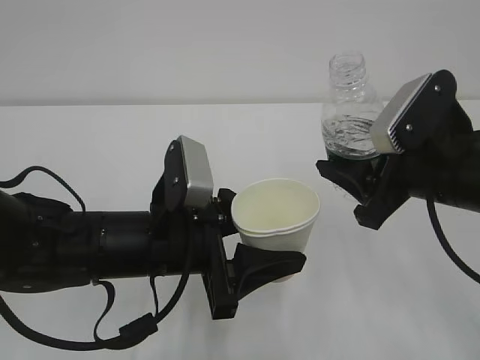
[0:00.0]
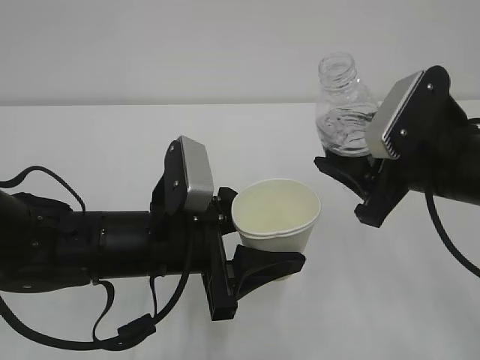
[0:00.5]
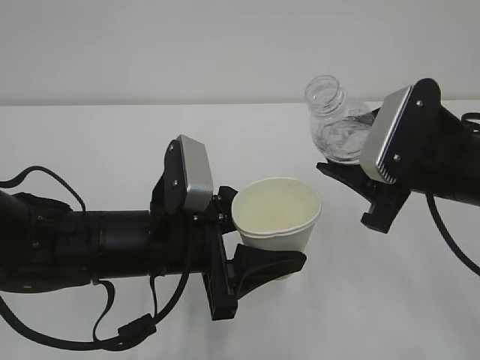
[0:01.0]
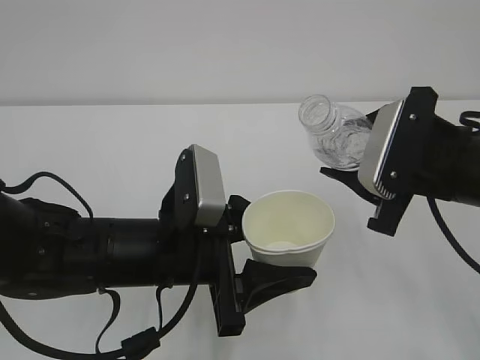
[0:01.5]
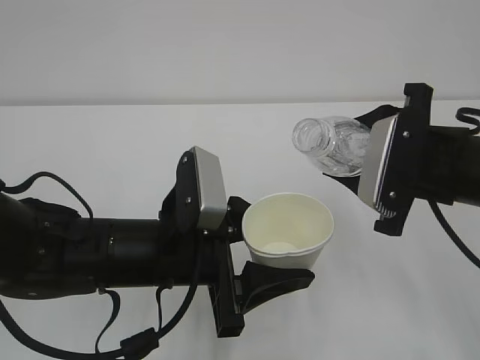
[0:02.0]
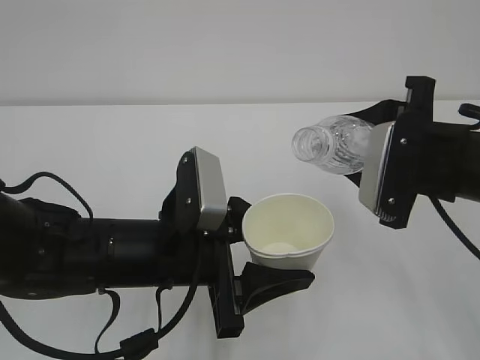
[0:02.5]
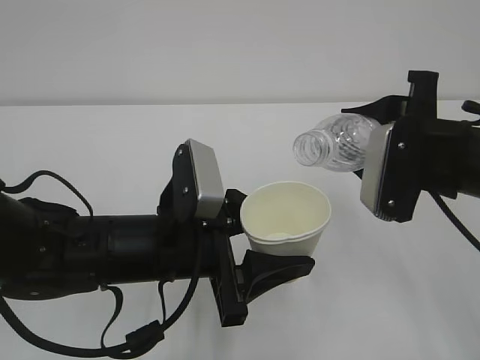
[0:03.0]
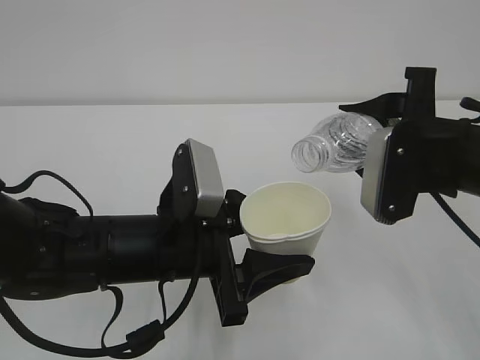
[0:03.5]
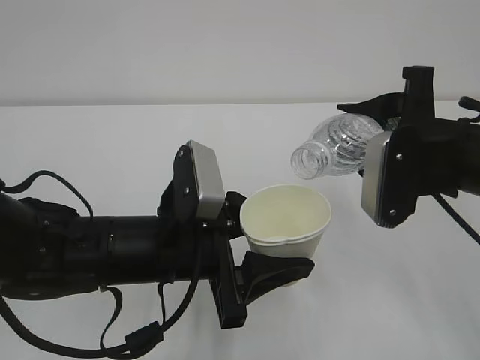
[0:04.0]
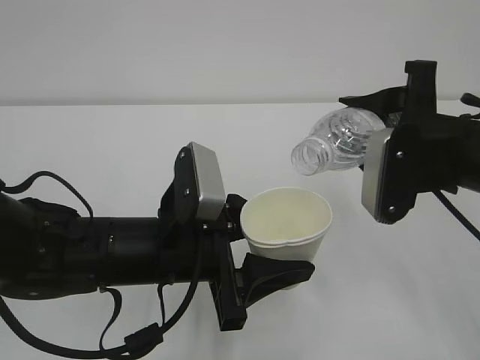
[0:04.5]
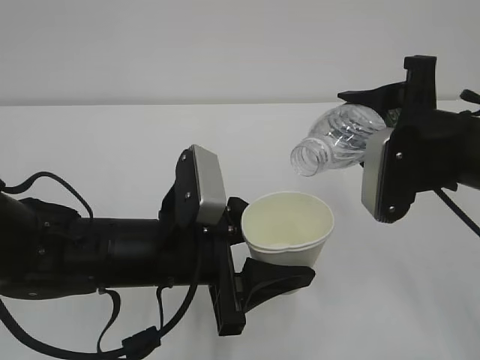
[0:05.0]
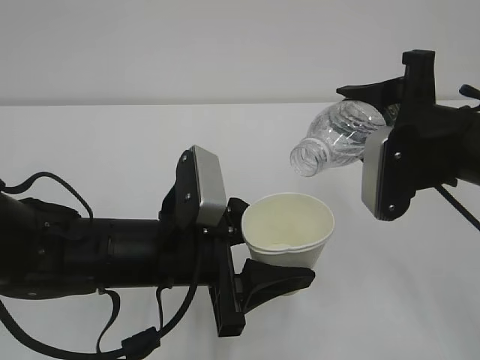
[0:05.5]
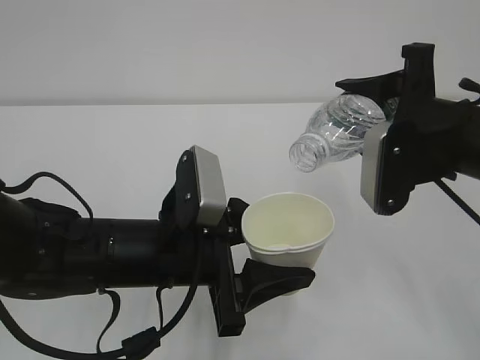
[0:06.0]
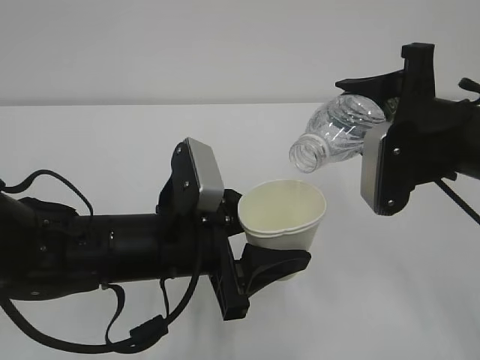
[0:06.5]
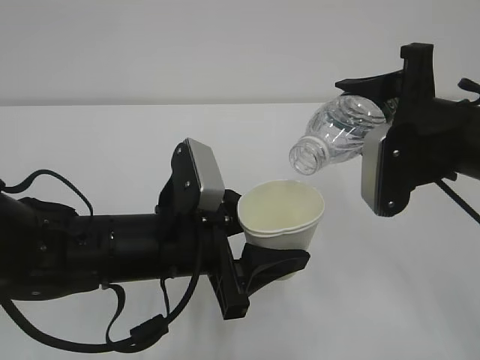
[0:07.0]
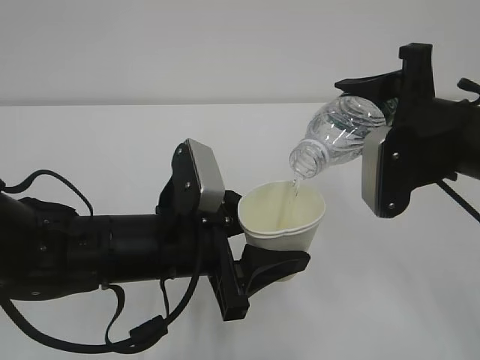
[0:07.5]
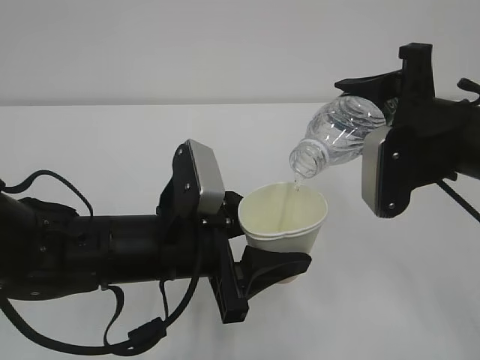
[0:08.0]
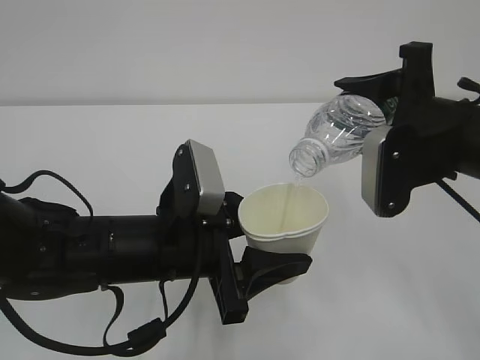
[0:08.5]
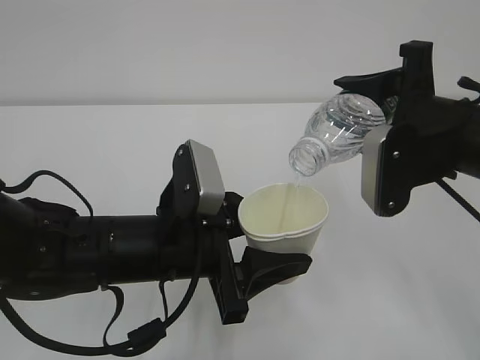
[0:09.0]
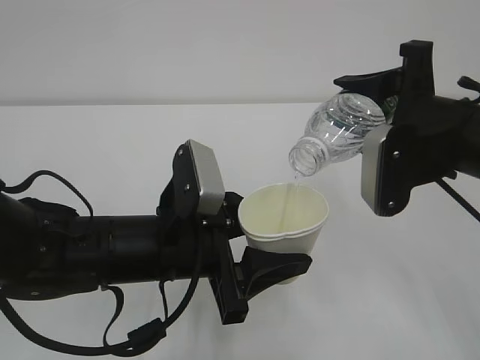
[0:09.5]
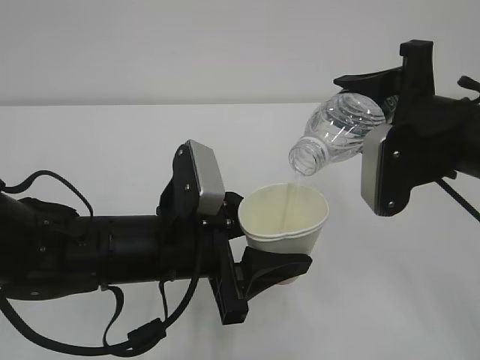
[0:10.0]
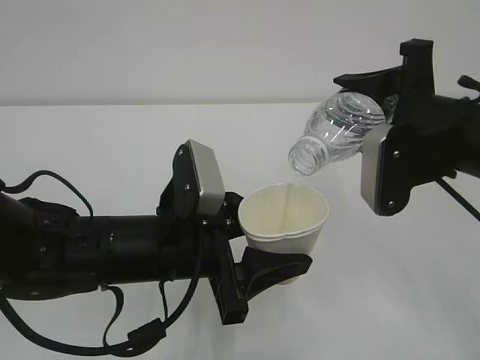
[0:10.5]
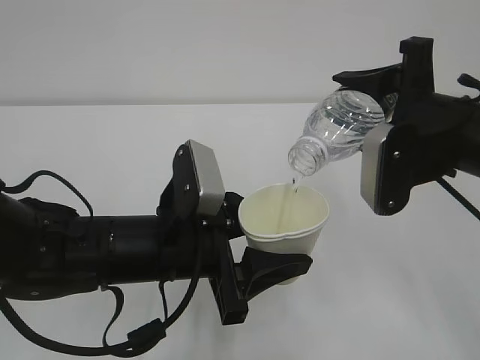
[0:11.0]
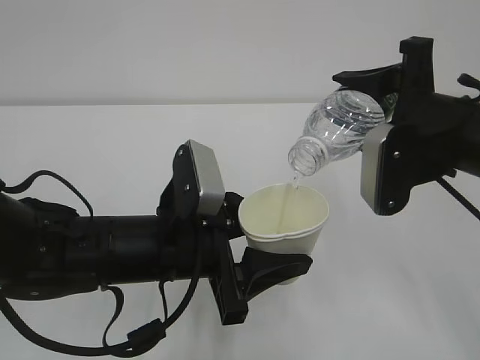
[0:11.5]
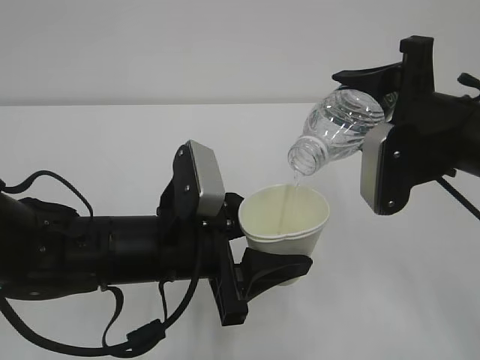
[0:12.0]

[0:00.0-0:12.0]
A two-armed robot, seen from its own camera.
0:04.0 to 0:08.0: The grippers move only a little.
0:08.0 to 0:12.0: Neither gripper changes place.

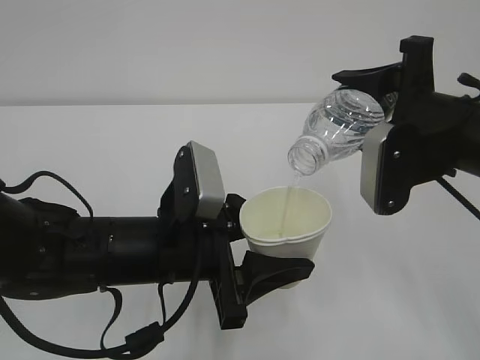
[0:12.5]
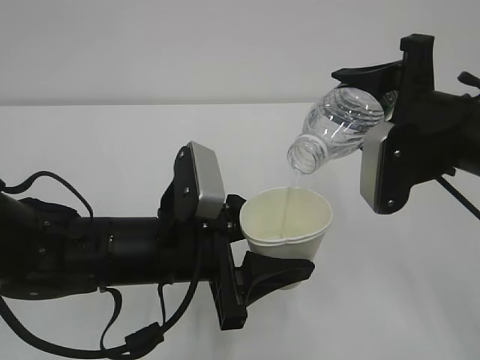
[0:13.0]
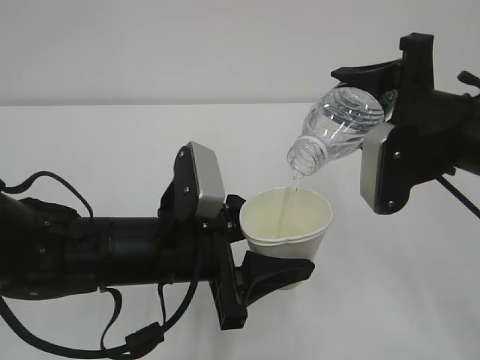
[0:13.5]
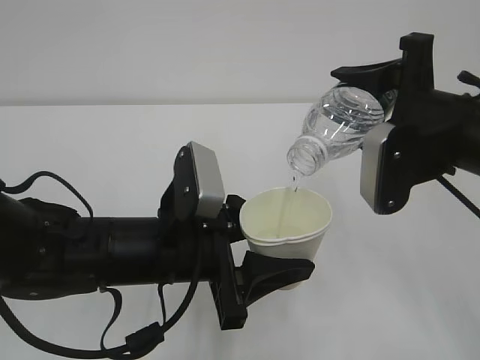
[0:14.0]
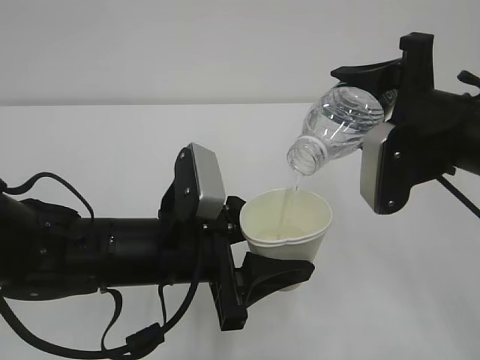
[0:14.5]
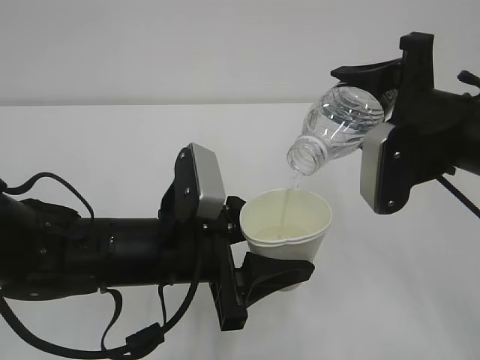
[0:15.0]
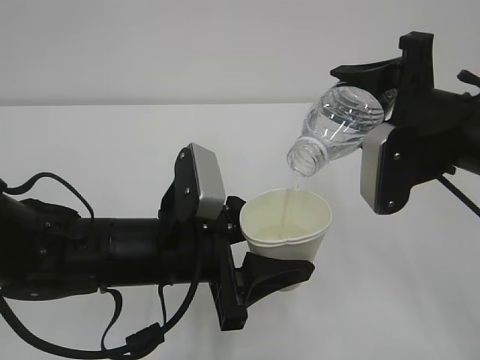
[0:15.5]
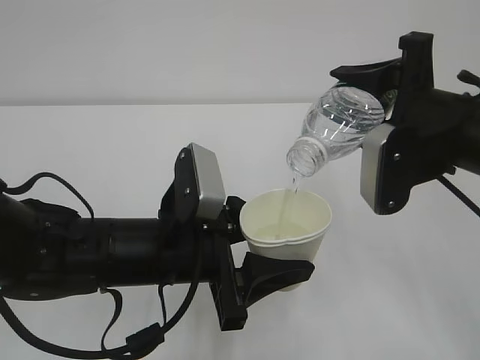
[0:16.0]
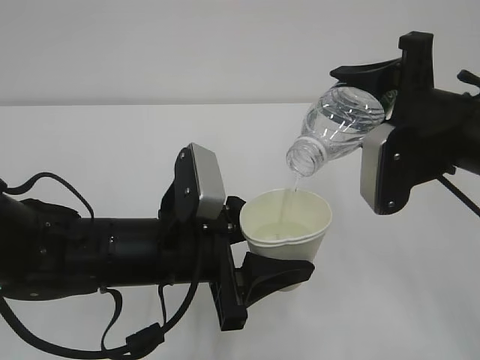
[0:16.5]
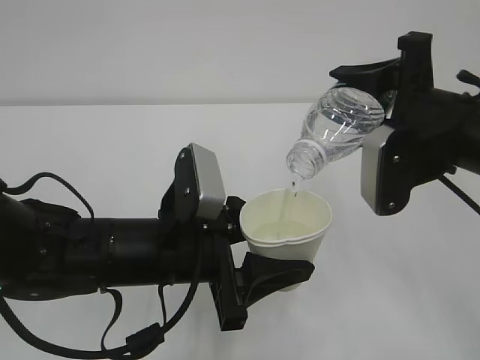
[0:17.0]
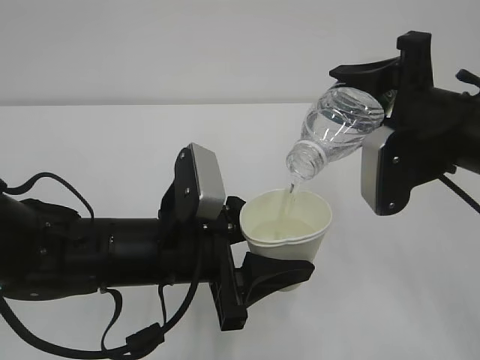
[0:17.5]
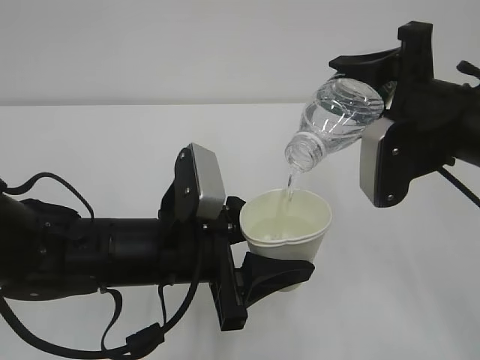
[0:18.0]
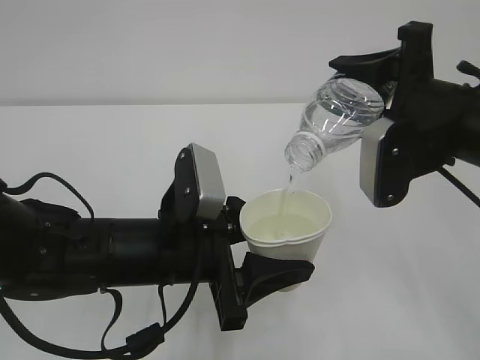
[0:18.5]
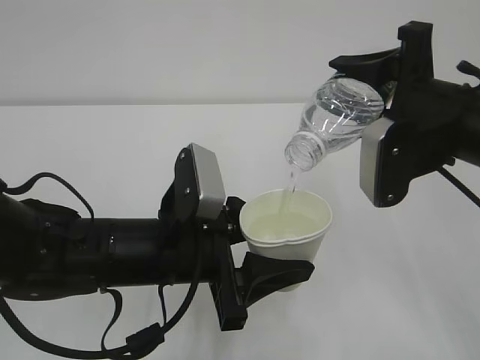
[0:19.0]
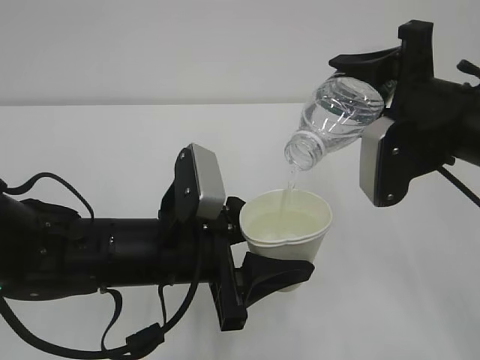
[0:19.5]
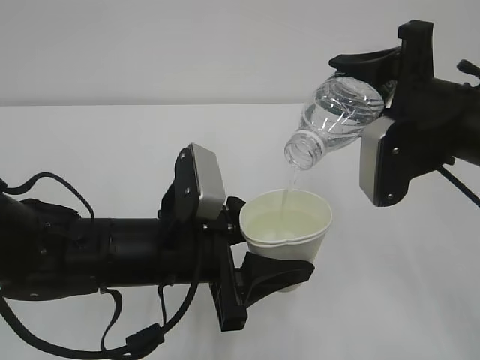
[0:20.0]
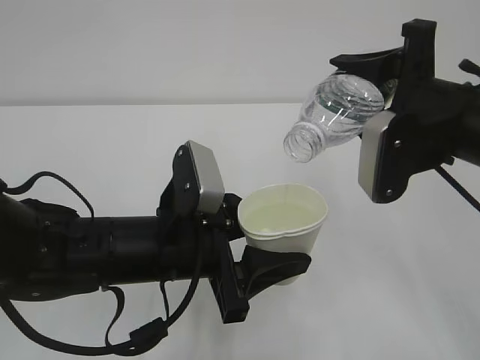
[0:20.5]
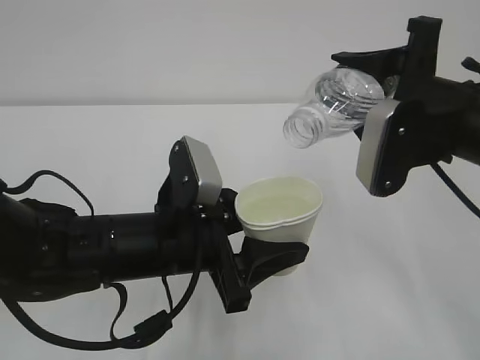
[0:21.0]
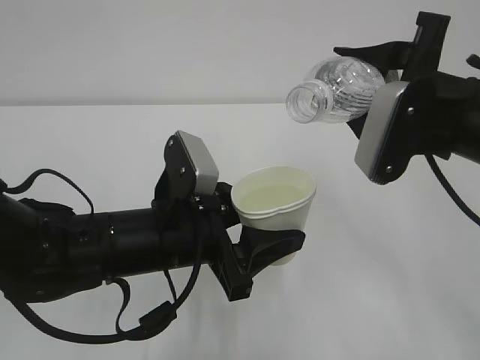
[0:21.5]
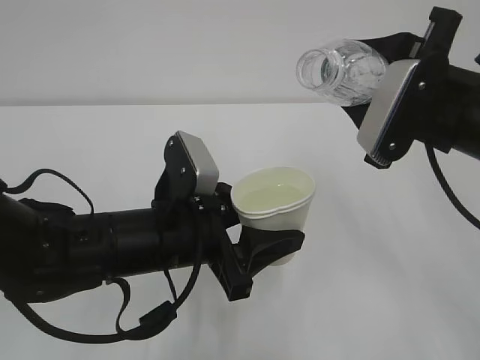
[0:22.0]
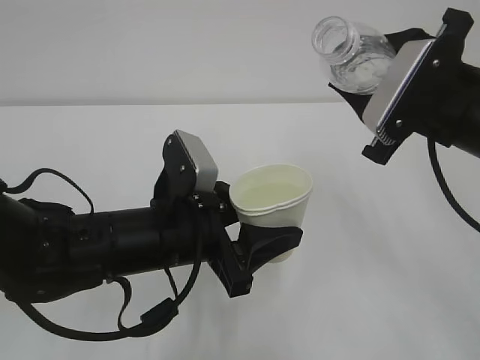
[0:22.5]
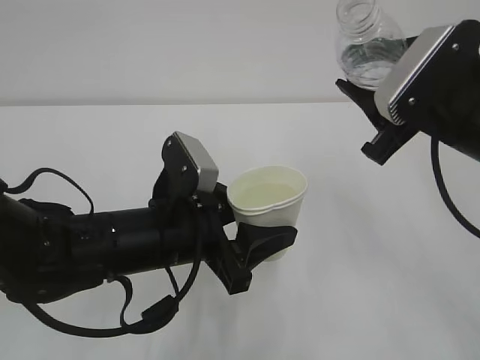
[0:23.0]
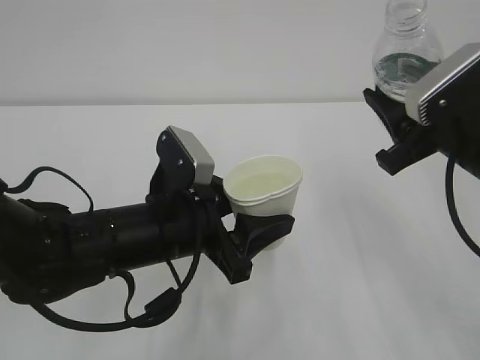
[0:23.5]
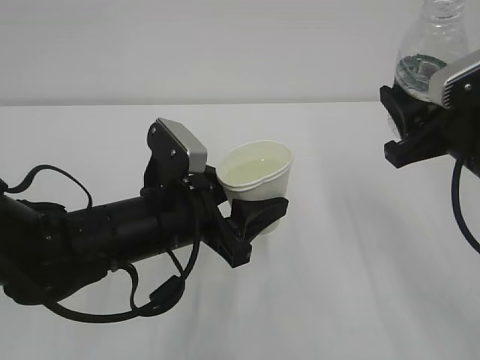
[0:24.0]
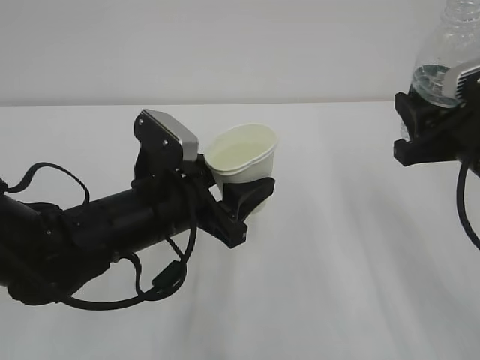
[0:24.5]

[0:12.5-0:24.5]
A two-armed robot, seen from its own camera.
0:12.5 to 0:16.5: The two grippers keep their place.
0:16.5 to 0:20.5: Both grippers stay put.
0:22.5 to 0:24.5: The right gripper changes place by some 5 cm.

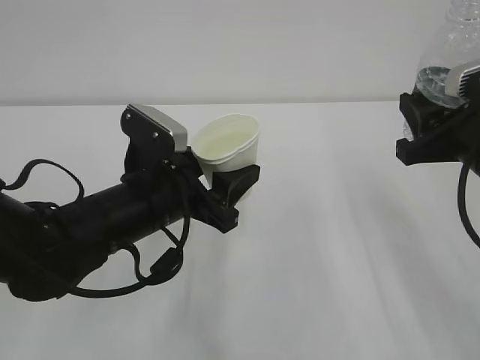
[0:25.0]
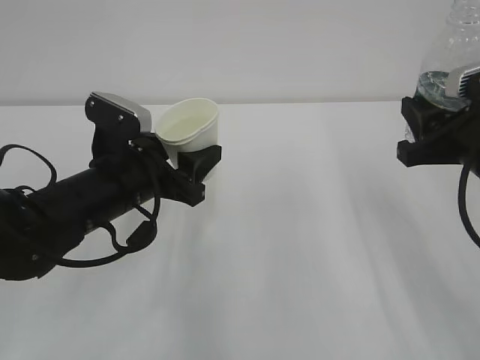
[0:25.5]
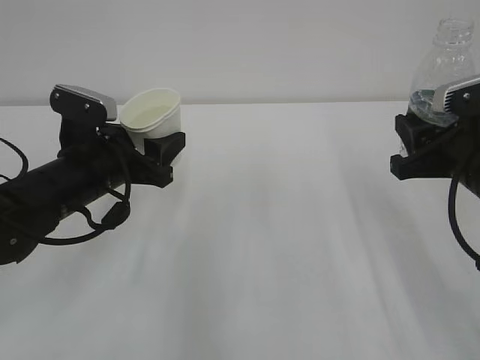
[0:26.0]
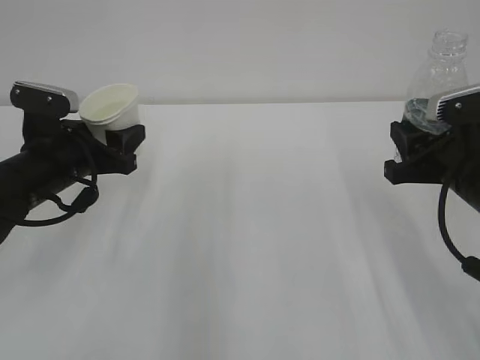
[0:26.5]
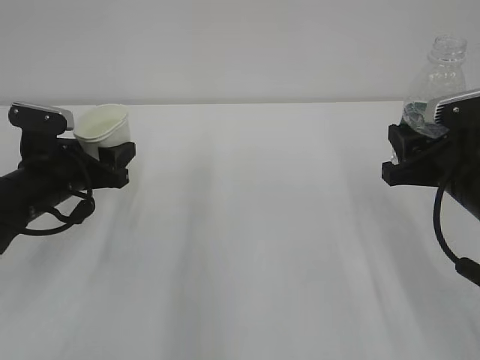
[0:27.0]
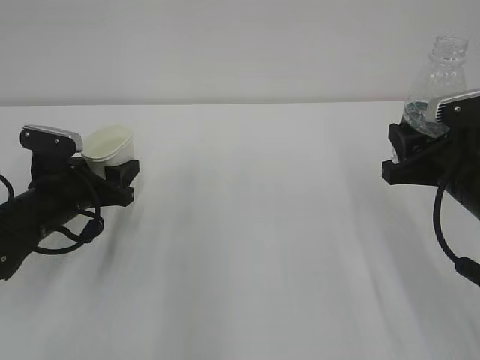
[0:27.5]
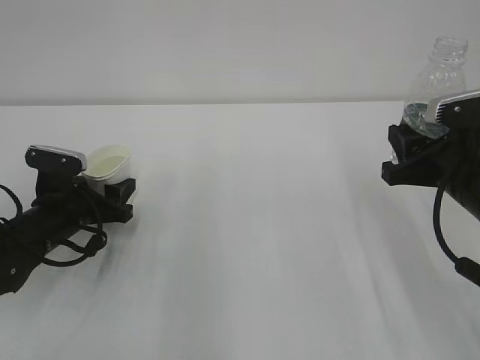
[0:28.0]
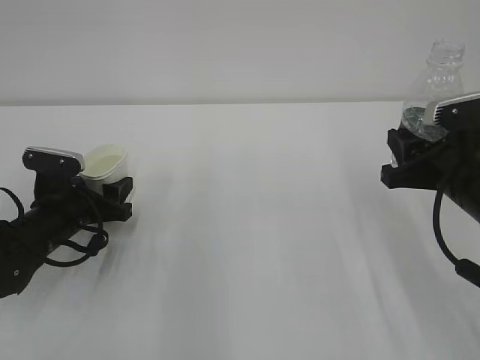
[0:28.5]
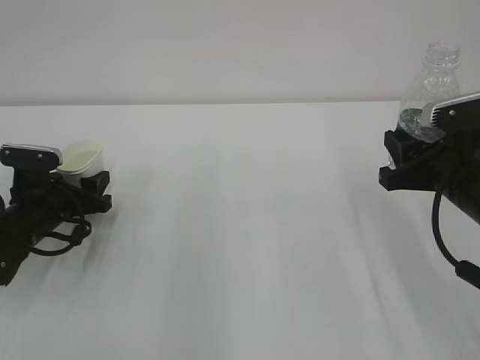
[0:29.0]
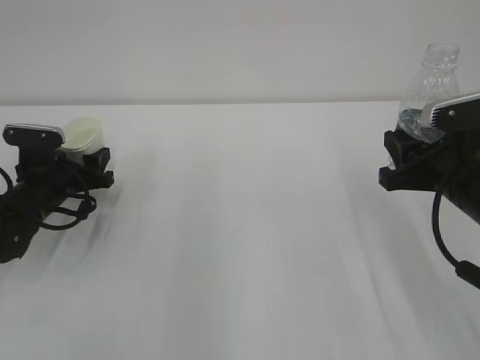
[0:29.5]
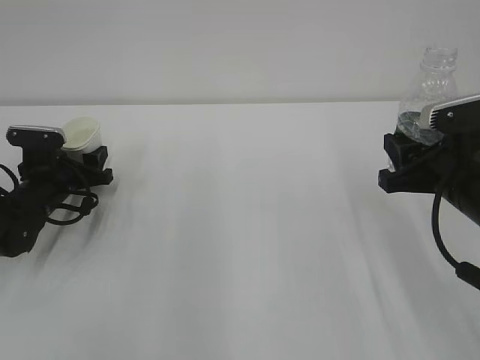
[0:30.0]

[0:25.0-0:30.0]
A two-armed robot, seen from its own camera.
0:25.0 to 0:27.5: The left gripper is displaced to the left, forward and downward by some 15 cm.
0:27.5 to 0:30.0: The left gripper goes about 10 cm forward and to the left.
